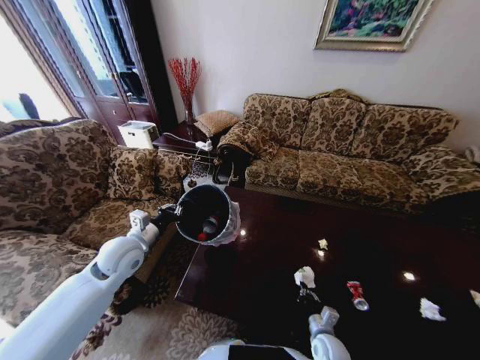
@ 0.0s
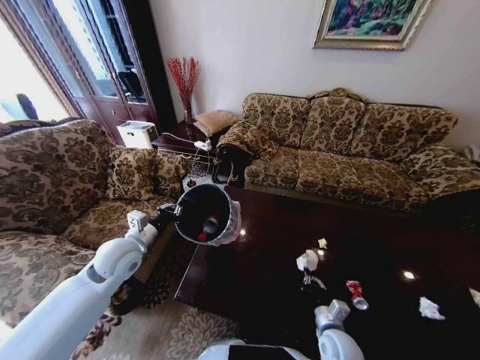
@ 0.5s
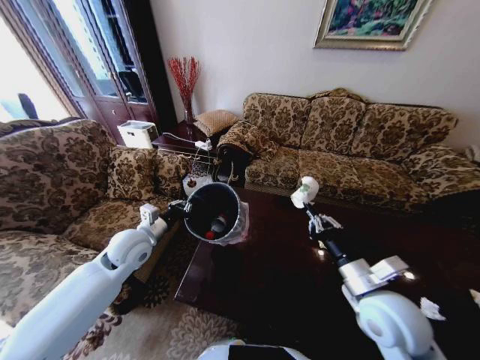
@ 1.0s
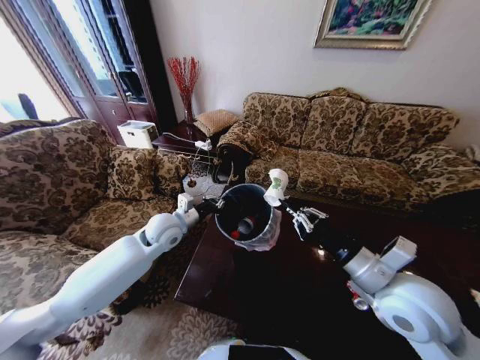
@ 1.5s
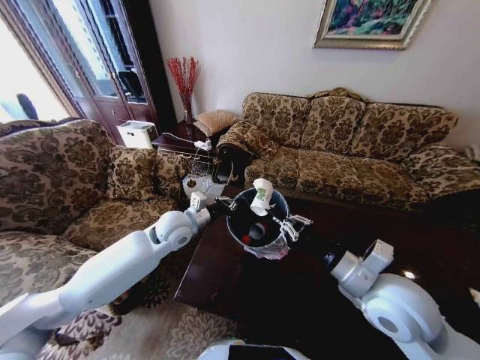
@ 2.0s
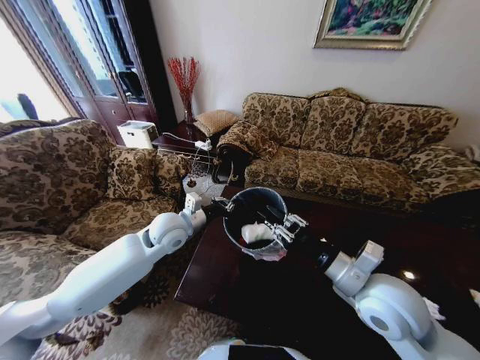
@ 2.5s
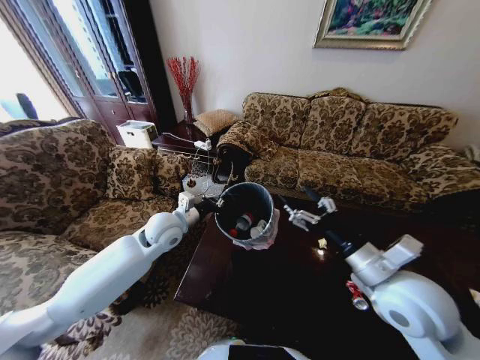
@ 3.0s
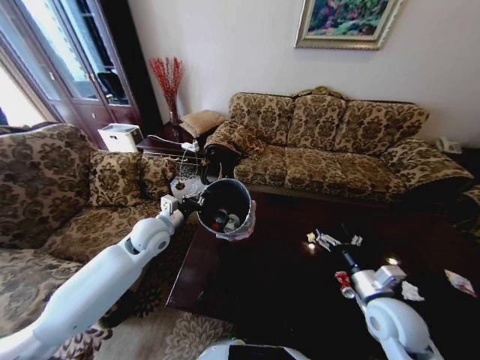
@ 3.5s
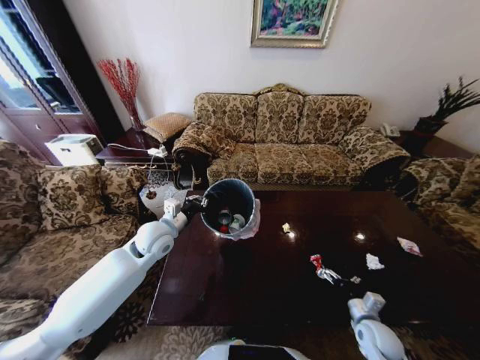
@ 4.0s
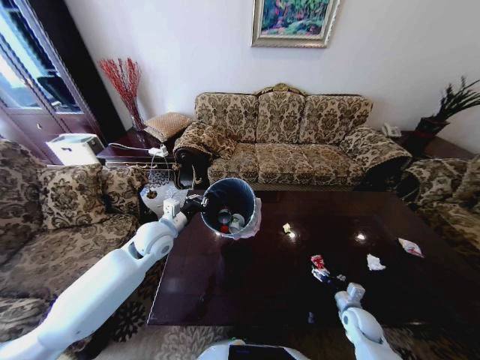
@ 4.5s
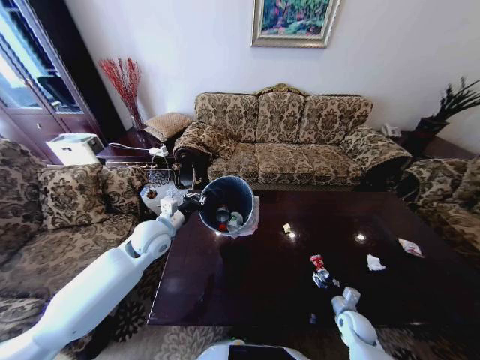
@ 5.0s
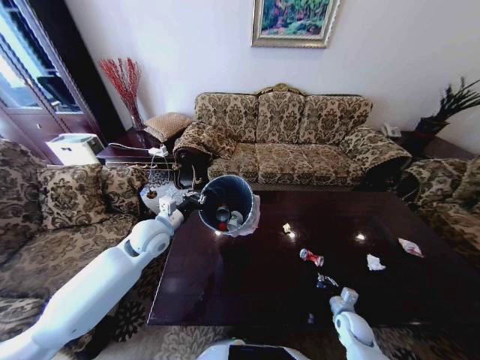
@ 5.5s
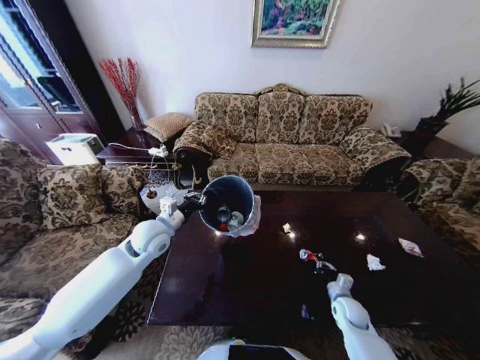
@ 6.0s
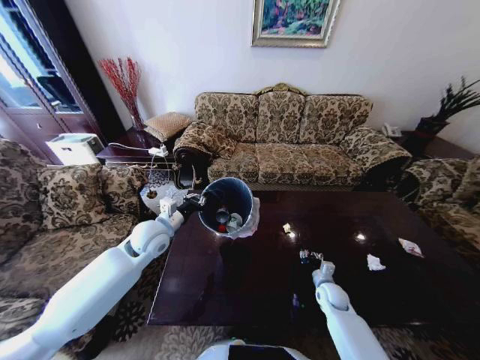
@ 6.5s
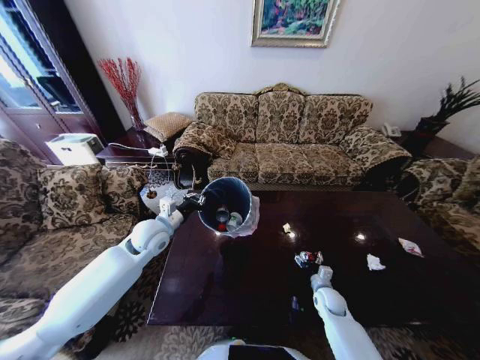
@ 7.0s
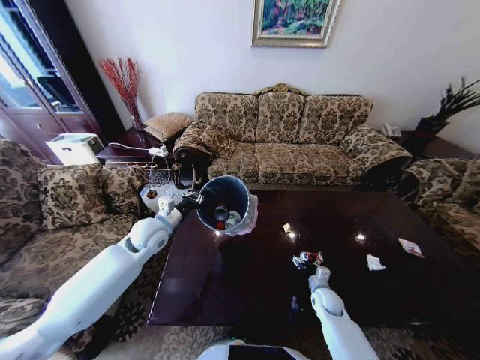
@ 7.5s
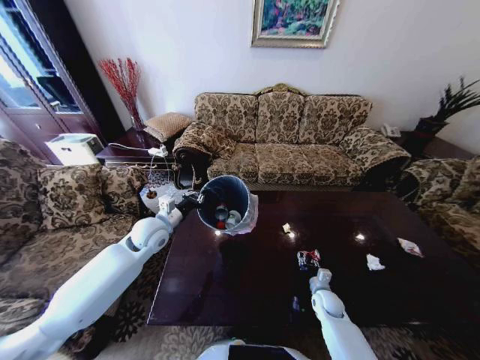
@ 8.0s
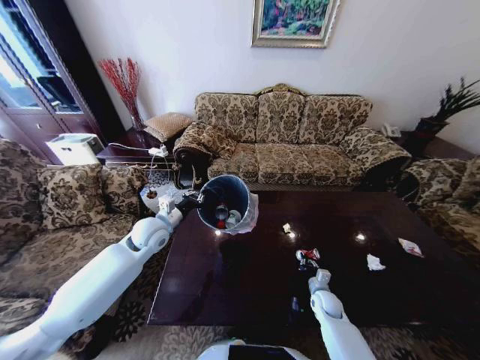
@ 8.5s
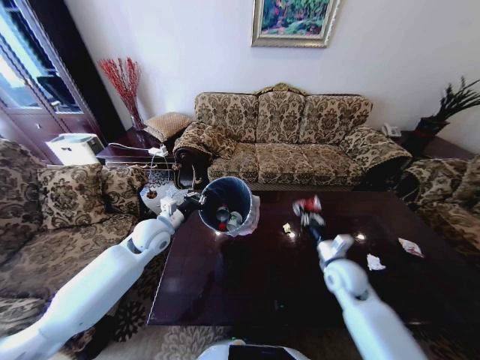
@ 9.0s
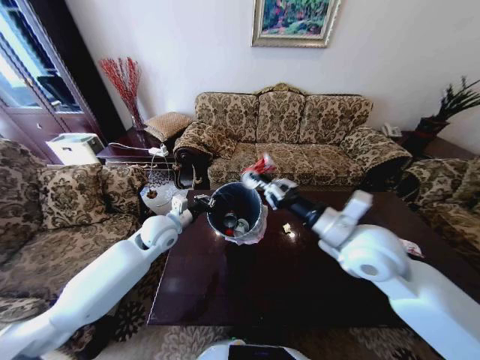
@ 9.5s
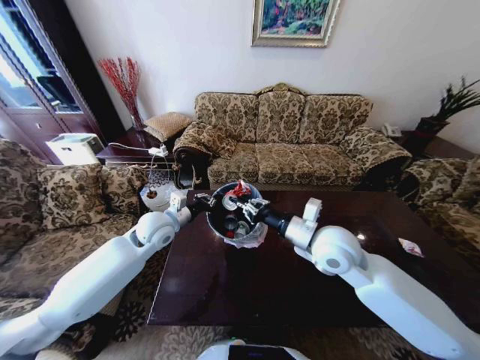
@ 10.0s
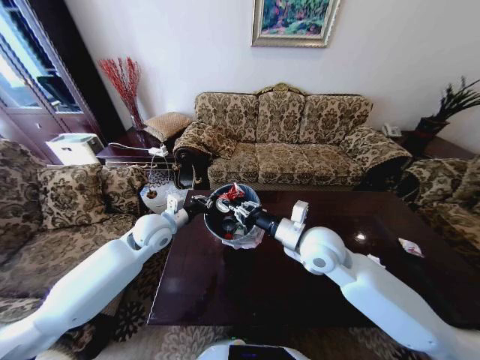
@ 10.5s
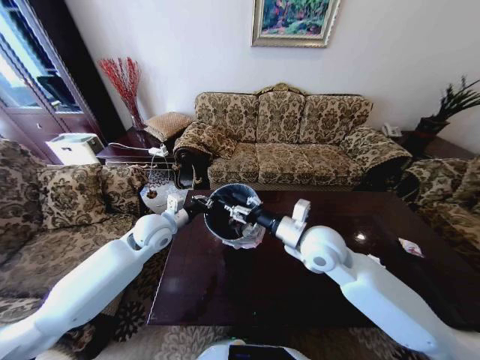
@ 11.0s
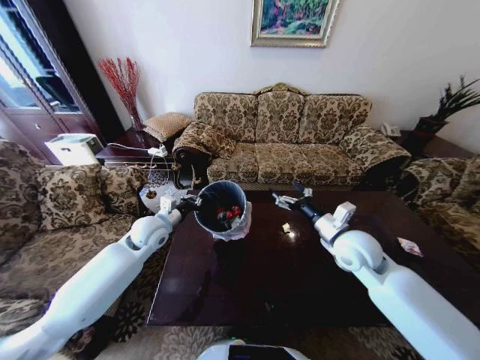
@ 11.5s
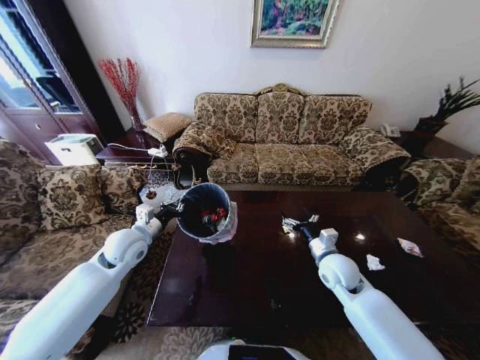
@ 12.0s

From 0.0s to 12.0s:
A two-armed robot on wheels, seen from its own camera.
Task of the whole recording: Move to the front of the table and place the trash on the table into the trash bin.
From 0.0s to 2.0s: The right gripper heads upward, covering some 35 cm. The left gripper moves to the right and forward, some 15 cm.
From 2.0s to 4.0s: The right gripper travels downward and to the right by roughly 30 cm, and opens up. Meanwhile the left gripper goes about 5 cm to the left.
From 4.0s to 6.0s: The right gripper heads forward and downward, covering roughly 10 cm, and closes its fingers.
From 6.0s to 8.0s: The right gripper travels to the left by some 5 cm, and opens and closes again.
From 8.0s to 10.0s: The right gripper moves upward, approximately 35 cm.
From 10.0s to 12.0s: The right gripper goes some 15 cm downward and to the right, and opens, while the left gripper shifts roughly 5 cm to the left.

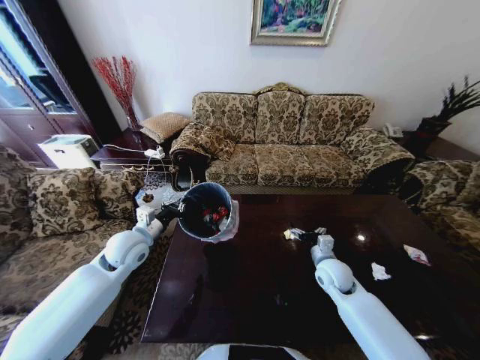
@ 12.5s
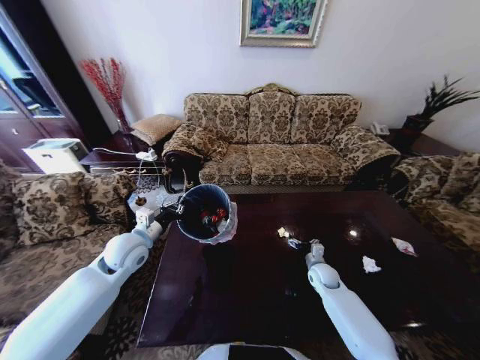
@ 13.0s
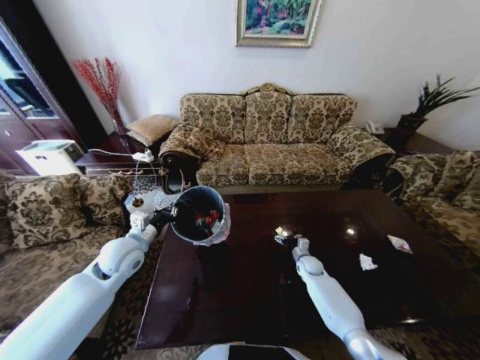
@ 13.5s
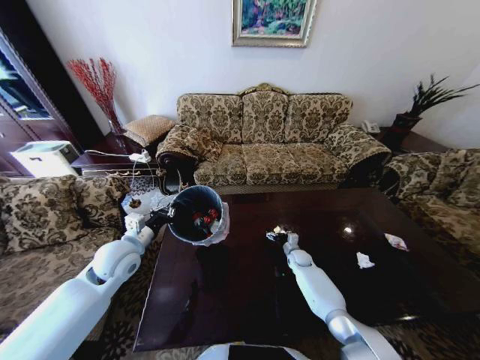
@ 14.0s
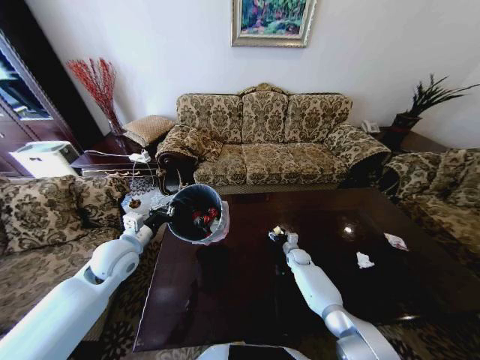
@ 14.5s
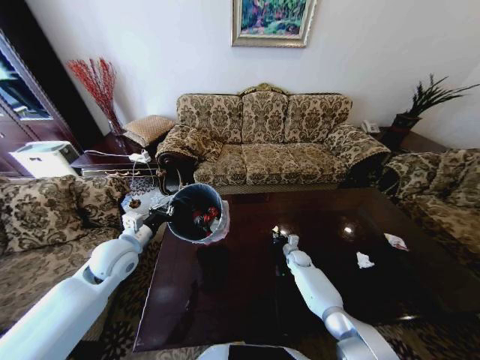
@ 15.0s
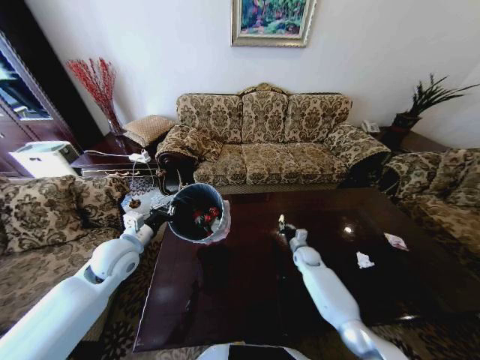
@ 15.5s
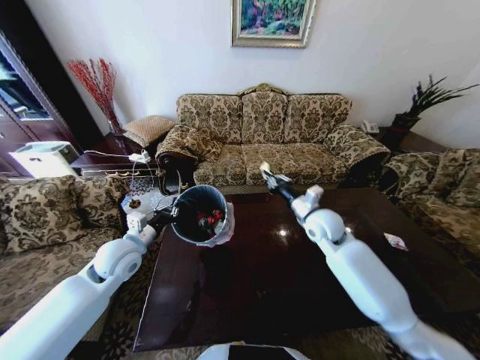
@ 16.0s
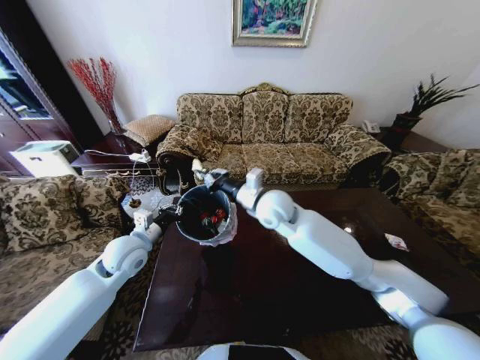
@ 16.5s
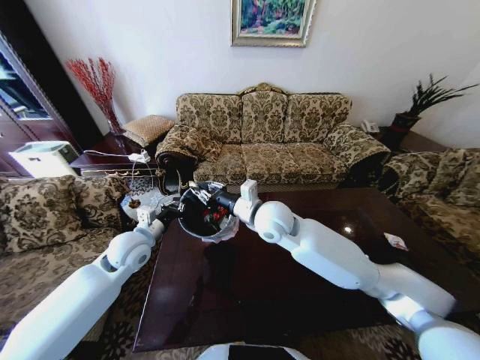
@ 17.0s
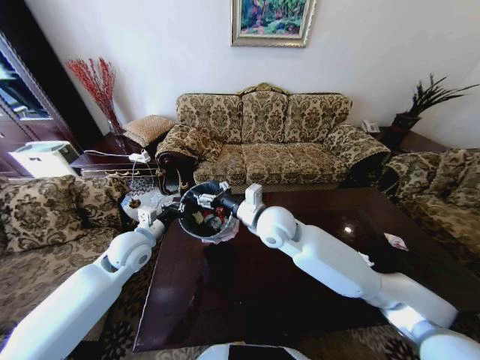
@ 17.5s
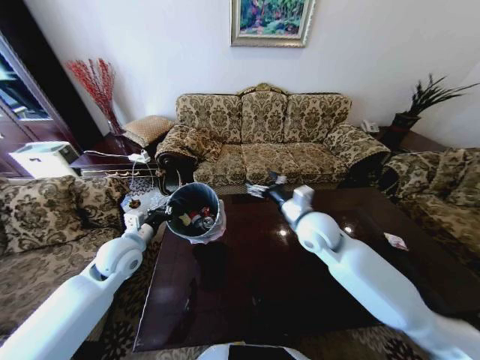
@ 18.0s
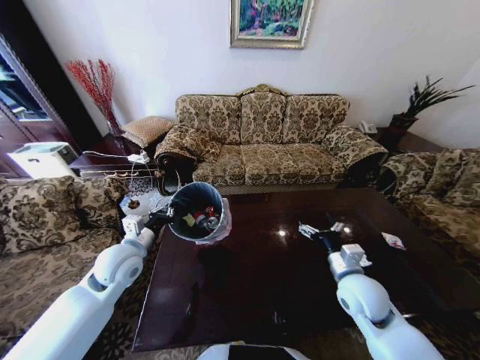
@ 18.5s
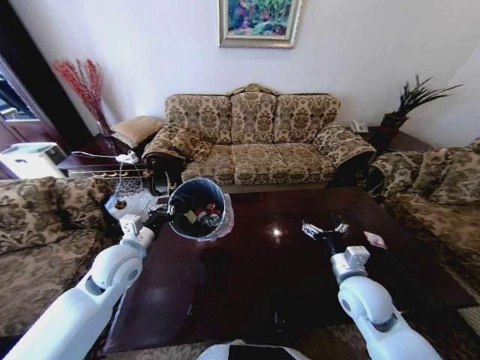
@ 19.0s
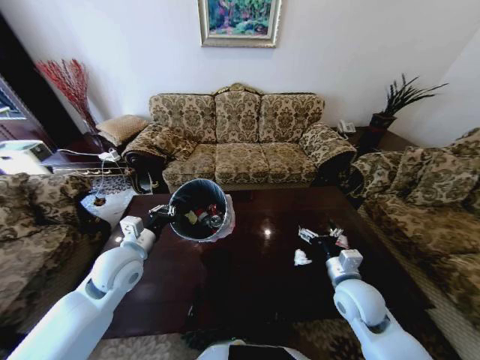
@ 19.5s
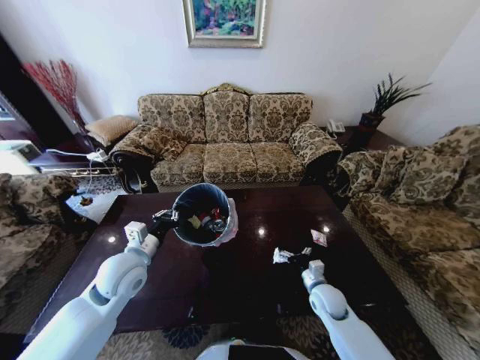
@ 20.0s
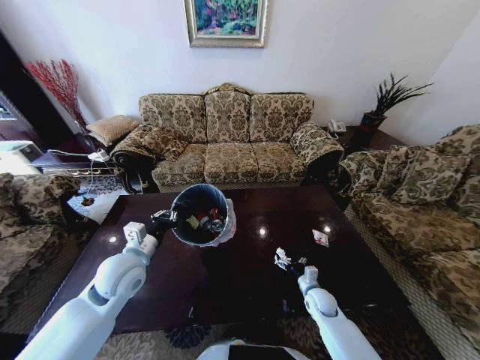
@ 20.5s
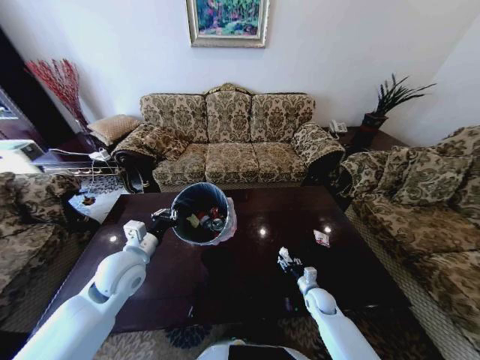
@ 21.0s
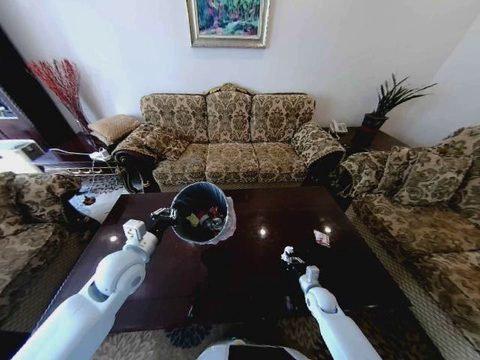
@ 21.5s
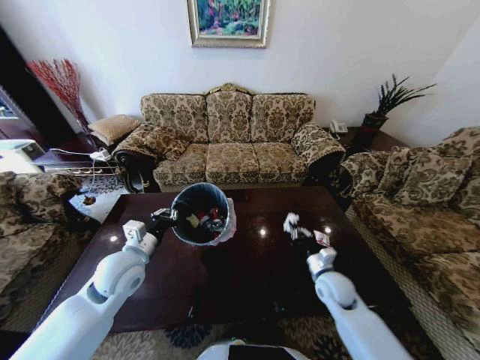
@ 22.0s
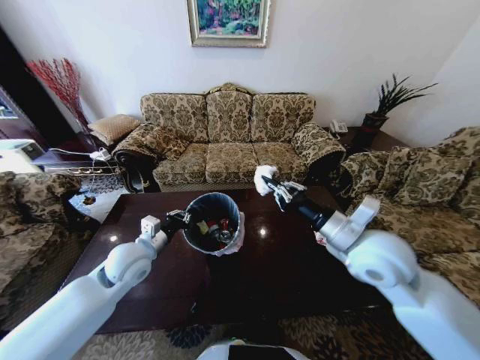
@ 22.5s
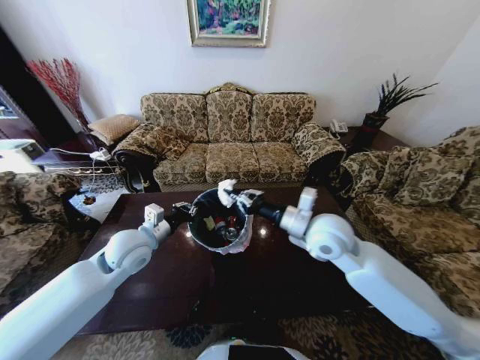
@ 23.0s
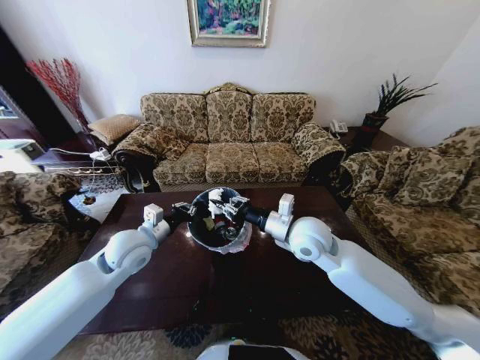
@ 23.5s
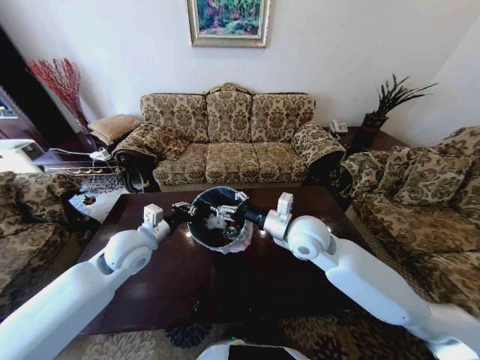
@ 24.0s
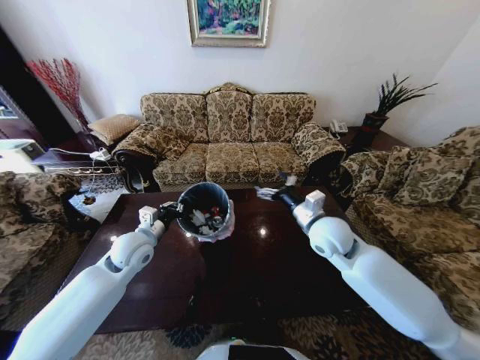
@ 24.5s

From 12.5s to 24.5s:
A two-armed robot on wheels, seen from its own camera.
Task of the whole recording: Move to the front of the table and place the trash on the table into the trash bin.
From 12.5s to 14.5s: The right gripper heads downward and forward, covering about 25 cm.
From 14.5s to 16.5s: The right gripper moves upward and to the left, some 40 cm, and closes.
From 16.5s to 18.5s: The right gripper heads to the right, backward and downward, covering roughly 30 cm, and opens.
From 18.5s to 20.5s: The right gripper shifts some 25 cm downward.
From 20.5s to 22.5s: The right gripper goes some 40 cm upward, and closes up.
From 22.5s to 24.5s: The right gripper moves forward and downward, roughly 10 cm, travels to the left and back again, some 10 cm each way, and opens.

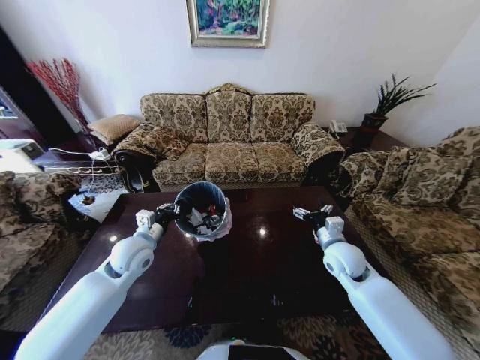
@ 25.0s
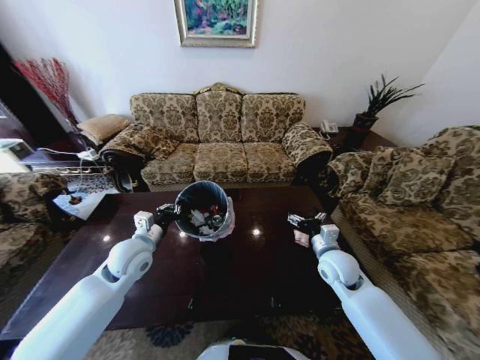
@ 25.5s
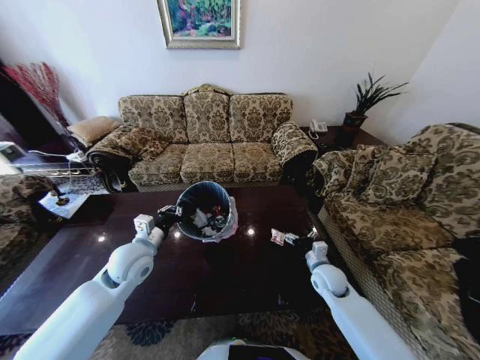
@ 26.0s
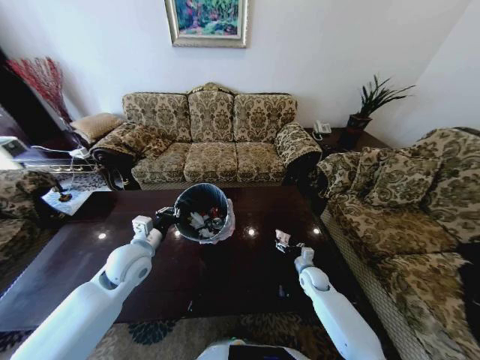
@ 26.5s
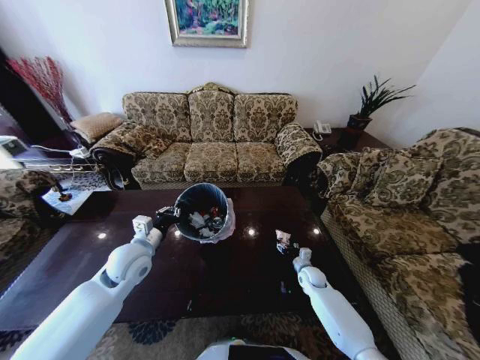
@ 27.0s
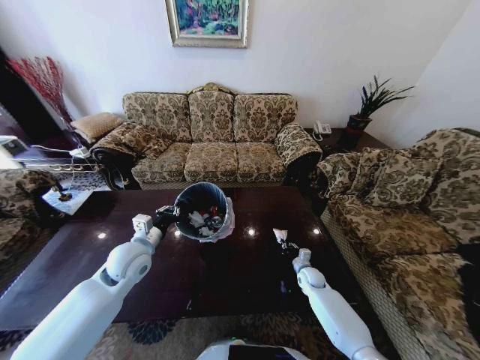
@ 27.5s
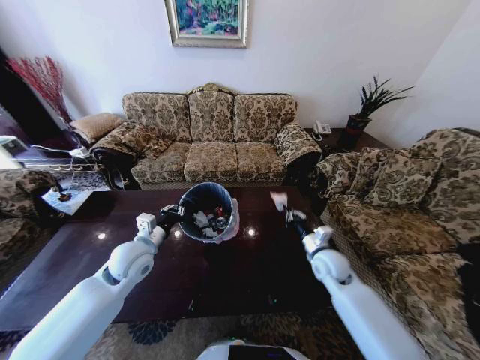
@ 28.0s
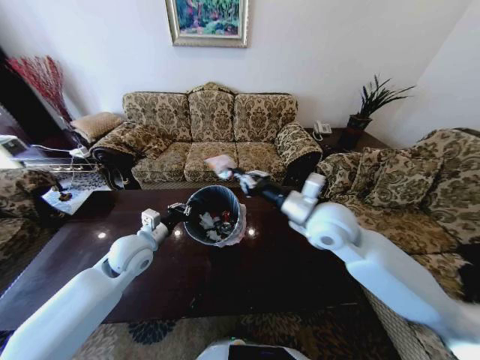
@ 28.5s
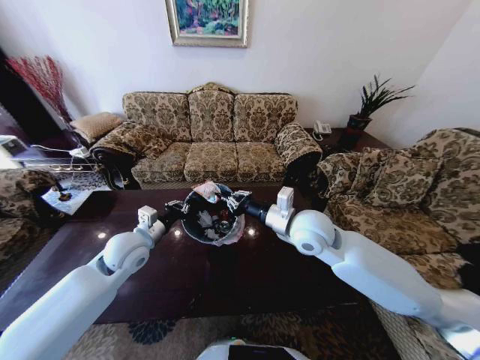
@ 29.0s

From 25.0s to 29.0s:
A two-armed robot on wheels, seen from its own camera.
Task of the whole recording: Move to the front of the table and place the trash on the table into the trash bin.
From 25.0s to 27.0s: The right gripper travels downward by some 25 cm.
From 27.0s to 29.0s: The right gripper goes roughly 40 cm upward, and closes its fingers.
